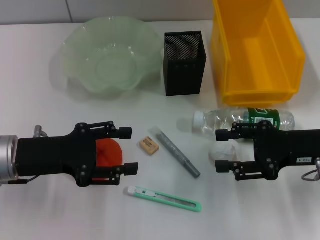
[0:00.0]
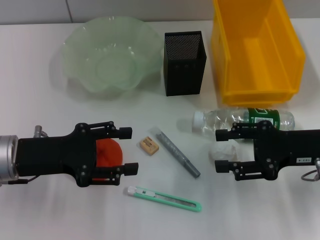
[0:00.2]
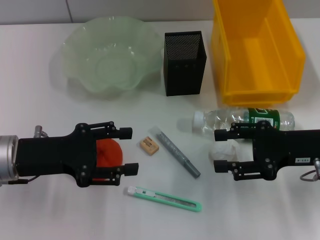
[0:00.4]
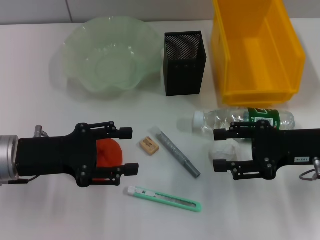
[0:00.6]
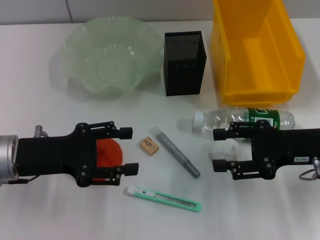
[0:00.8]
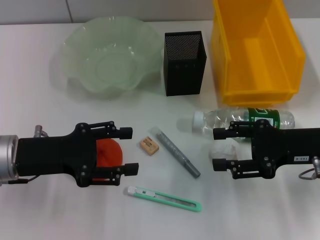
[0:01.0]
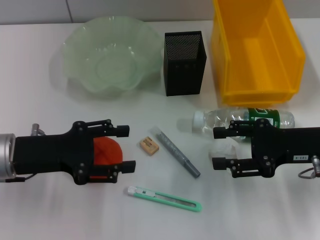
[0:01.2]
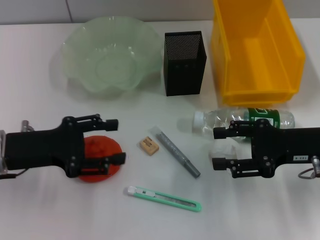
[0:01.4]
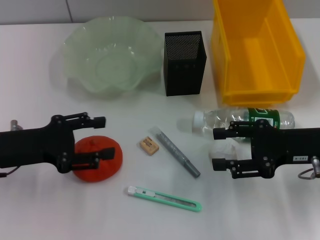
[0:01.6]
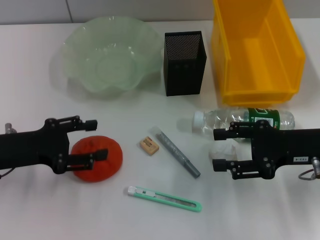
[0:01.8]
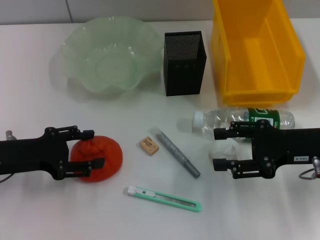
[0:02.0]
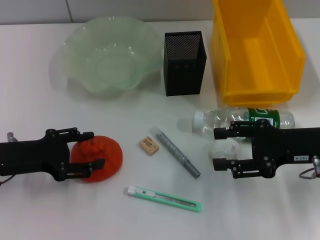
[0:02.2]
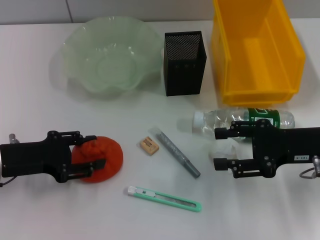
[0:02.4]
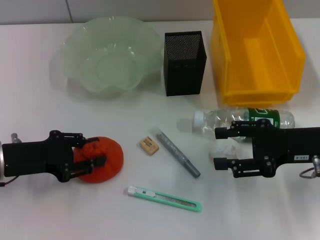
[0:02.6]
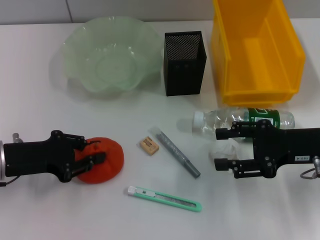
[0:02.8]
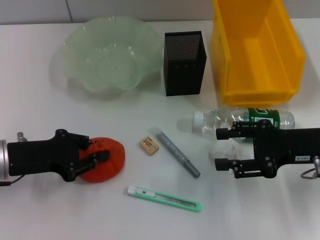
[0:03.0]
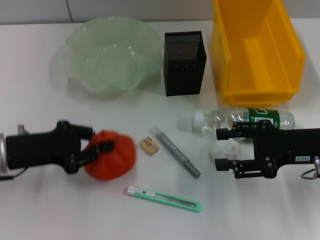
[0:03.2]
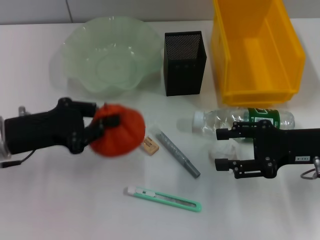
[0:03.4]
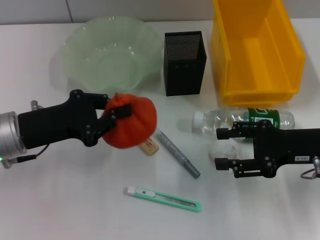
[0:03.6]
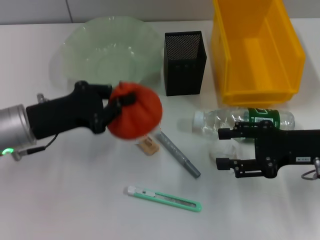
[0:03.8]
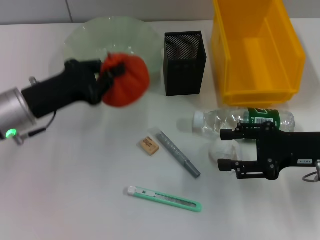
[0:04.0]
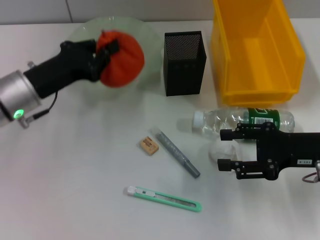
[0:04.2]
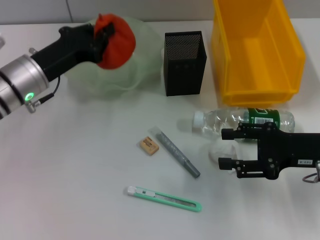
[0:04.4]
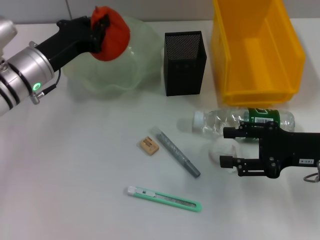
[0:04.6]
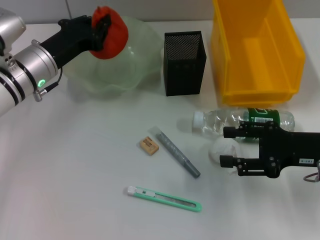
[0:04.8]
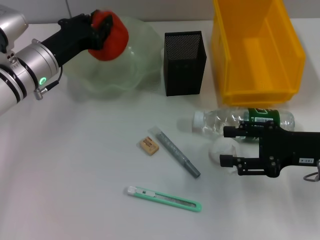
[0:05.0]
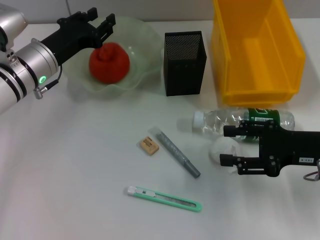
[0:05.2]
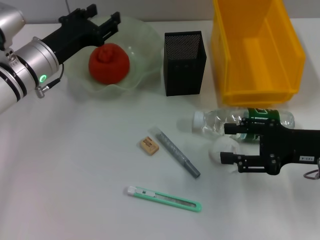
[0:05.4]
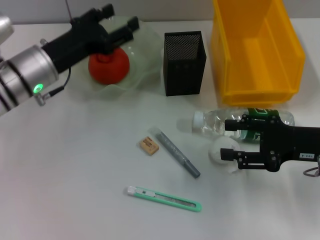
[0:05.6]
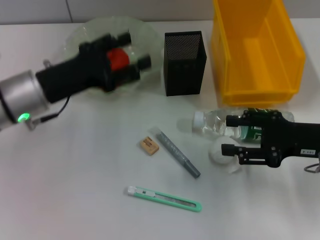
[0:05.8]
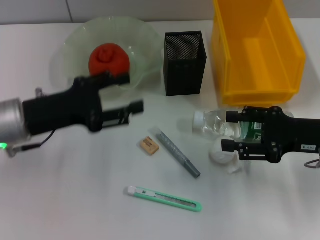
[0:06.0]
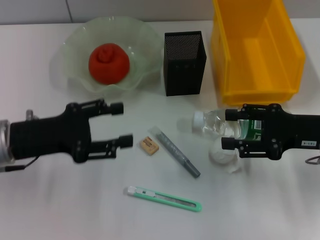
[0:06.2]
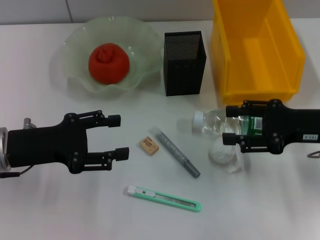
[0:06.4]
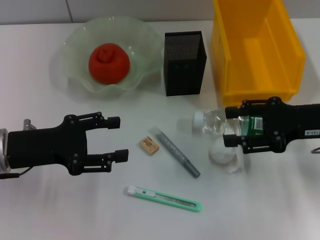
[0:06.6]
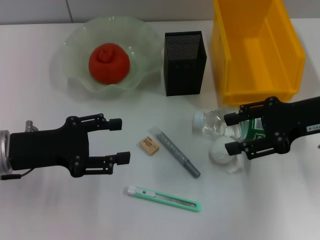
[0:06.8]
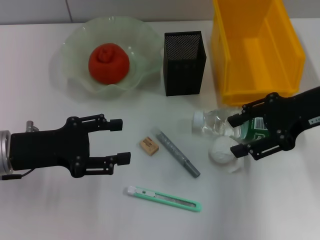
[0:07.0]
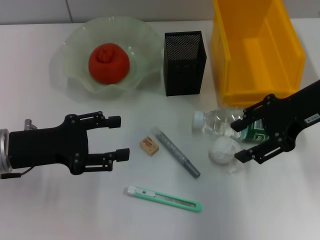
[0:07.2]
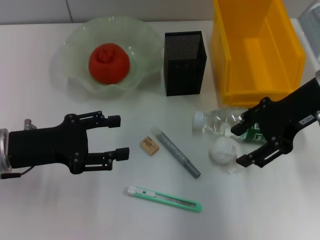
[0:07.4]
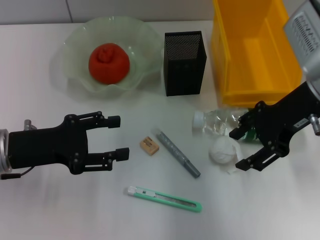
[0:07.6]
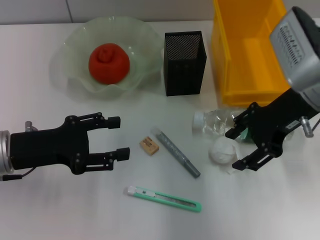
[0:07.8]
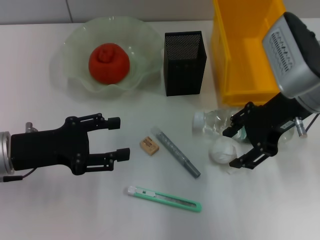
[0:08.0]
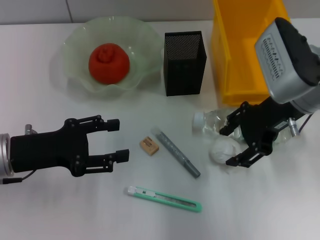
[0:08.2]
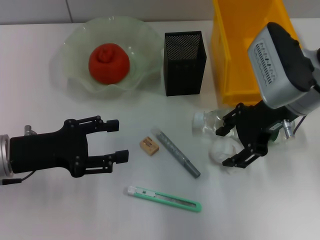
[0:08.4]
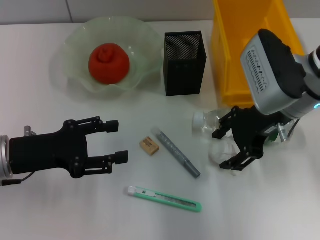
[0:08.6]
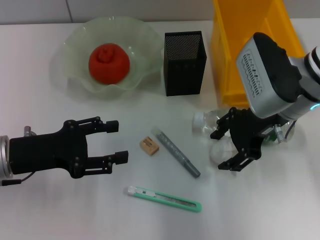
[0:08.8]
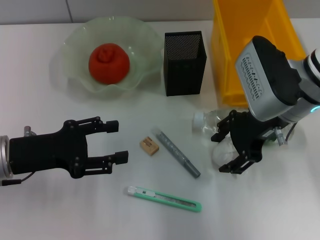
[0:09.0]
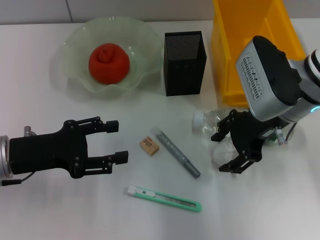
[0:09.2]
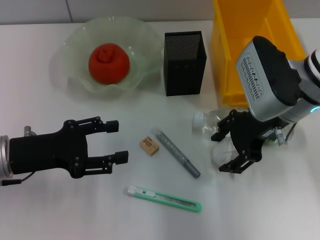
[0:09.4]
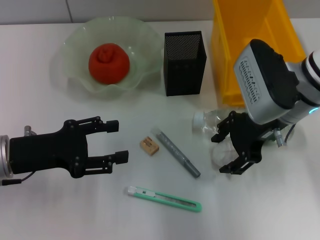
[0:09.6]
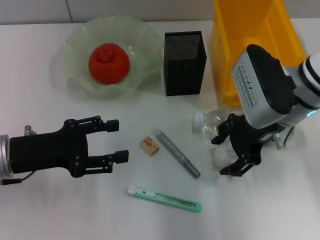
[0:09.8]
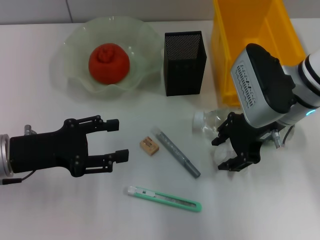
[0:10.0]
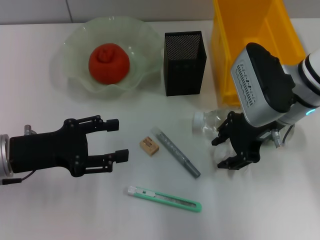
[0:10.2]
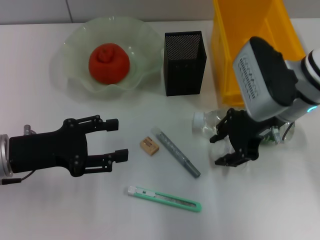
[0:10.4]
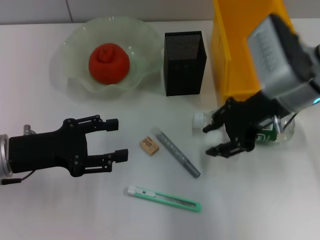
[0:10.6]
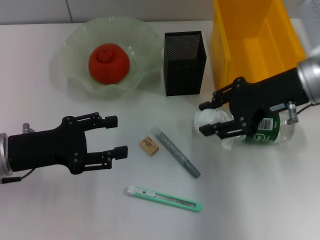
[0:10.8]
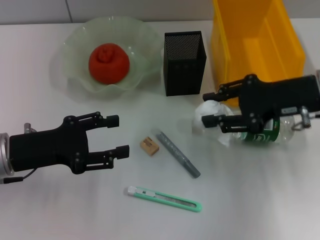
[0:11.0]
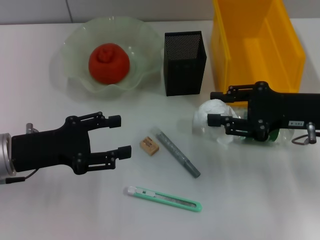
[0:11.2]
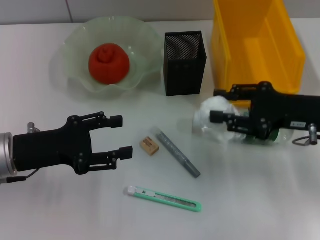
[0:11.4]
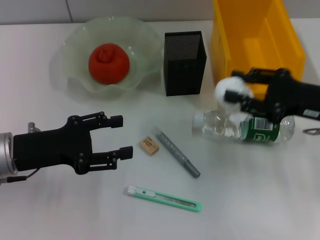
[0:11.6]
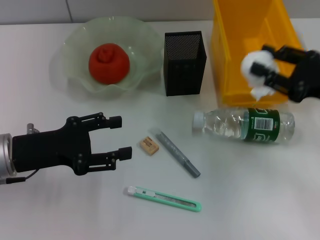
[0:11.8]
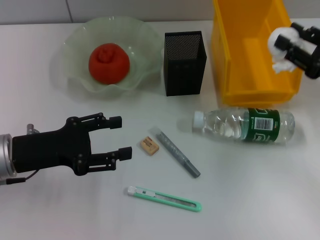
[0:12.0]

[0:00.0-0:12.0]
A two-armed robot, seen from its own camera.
Step, 0:00.0 to 0:02.8: Grab the orange with the left hand.
Step, 0:03.0 to 0:05.2: Place the orange into the fruit bowl with the left hand.
Step, 0:05.4 to 0:10.0: Grab the paper ball with the right hand.
0:00.0 to 0:01.6: The grippers move only a little.
0:01.6 to 0:03.0: The left gripper closes its fingers.
0:03.0 to 0:04.4: The left gripper travels forward by about 10 cm.
0:04.4 to 0:06.0: The left gripper goes about 5 cm backward, and opens its fingers.
0:06.0 to 0:07.6: The right gripper moves upward, to the left and forward, roughly 15 cm.
0:07.6 to 0:09.0: The right gripper moves some 5 cm.
0:09.0 to 0:10.4: Both grippers stay about where they are.
0:10.4 to 0:12.0: The right gripper shifts some 15 cm to the right.

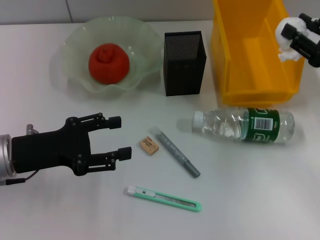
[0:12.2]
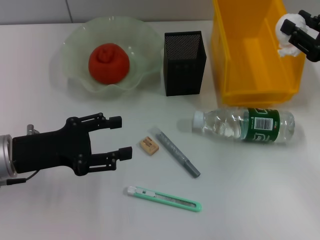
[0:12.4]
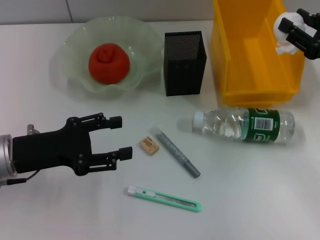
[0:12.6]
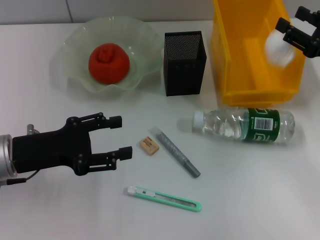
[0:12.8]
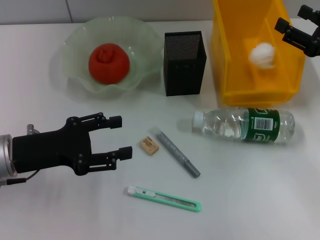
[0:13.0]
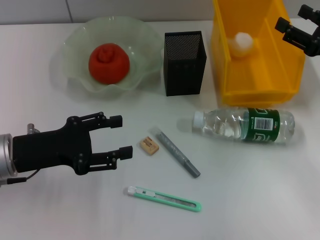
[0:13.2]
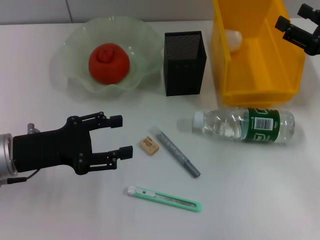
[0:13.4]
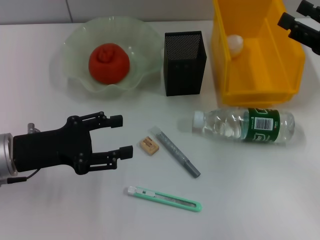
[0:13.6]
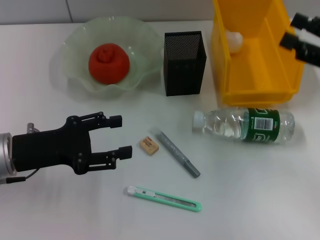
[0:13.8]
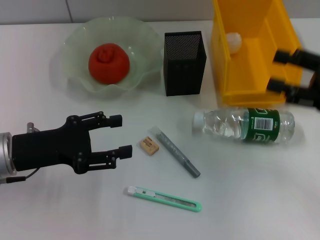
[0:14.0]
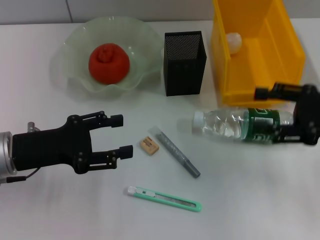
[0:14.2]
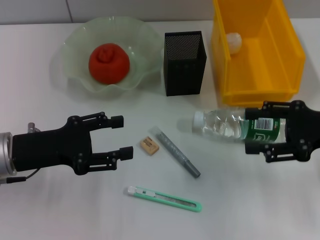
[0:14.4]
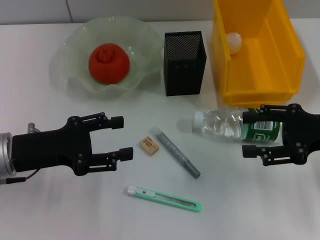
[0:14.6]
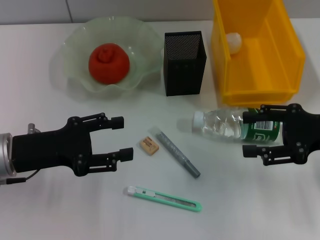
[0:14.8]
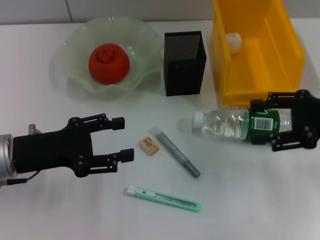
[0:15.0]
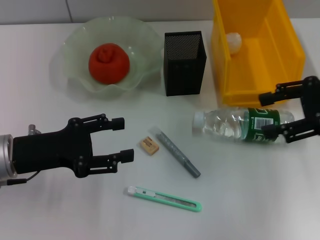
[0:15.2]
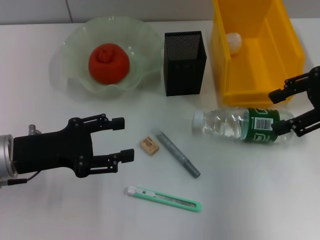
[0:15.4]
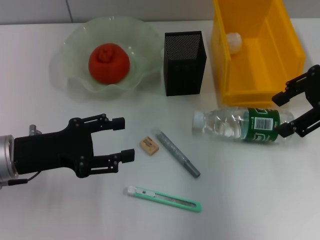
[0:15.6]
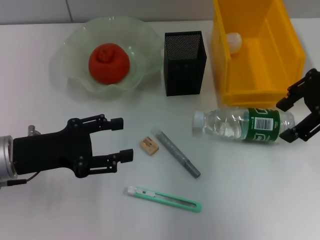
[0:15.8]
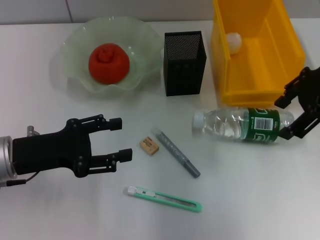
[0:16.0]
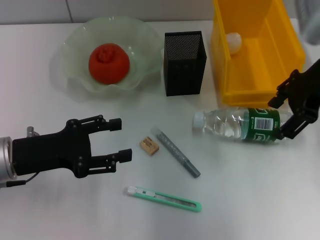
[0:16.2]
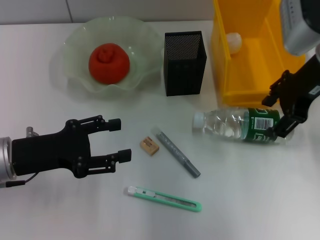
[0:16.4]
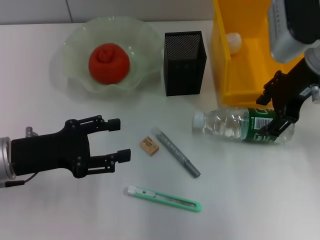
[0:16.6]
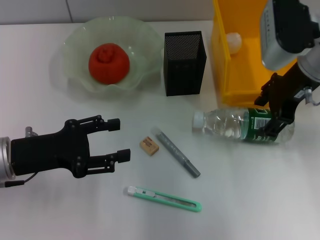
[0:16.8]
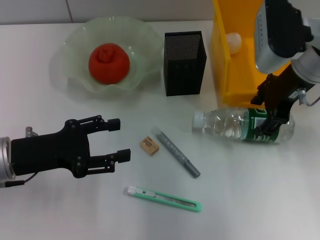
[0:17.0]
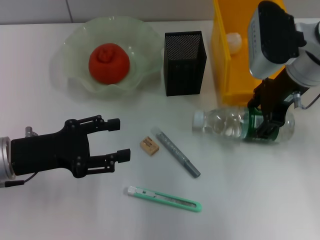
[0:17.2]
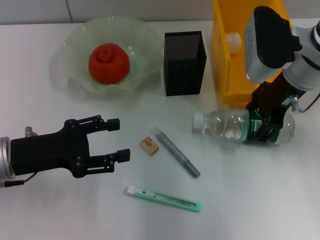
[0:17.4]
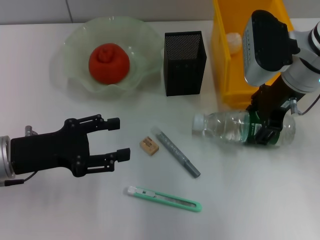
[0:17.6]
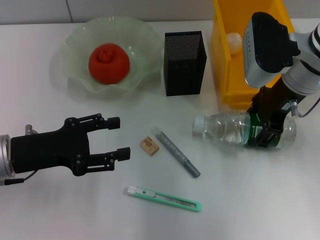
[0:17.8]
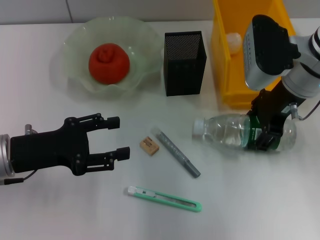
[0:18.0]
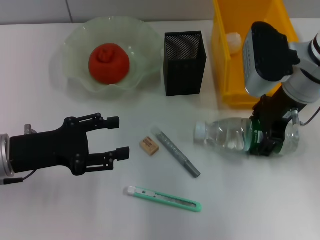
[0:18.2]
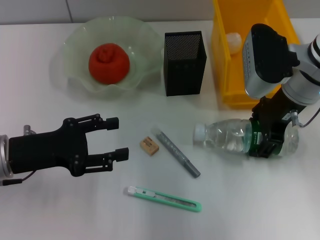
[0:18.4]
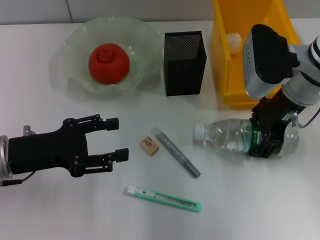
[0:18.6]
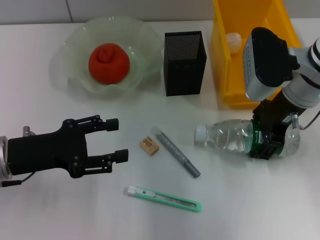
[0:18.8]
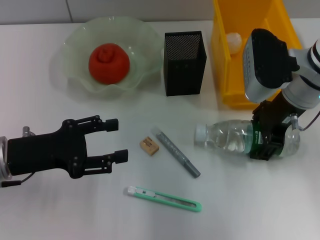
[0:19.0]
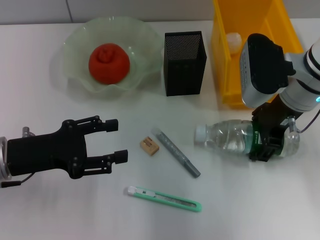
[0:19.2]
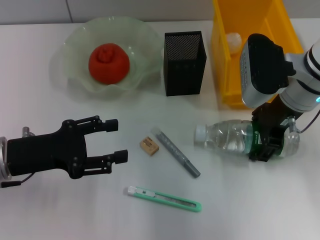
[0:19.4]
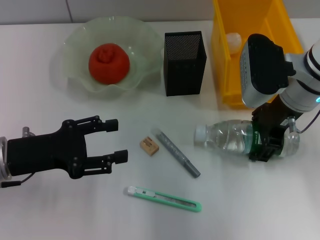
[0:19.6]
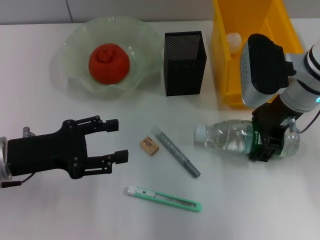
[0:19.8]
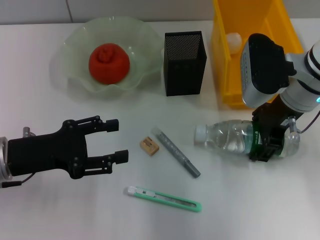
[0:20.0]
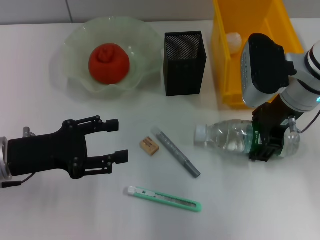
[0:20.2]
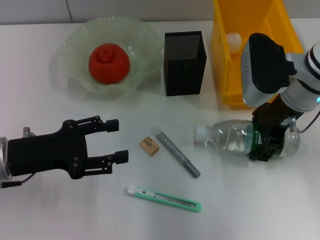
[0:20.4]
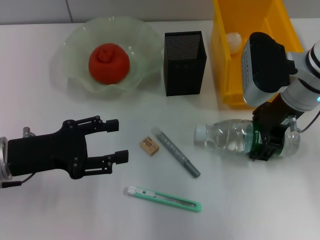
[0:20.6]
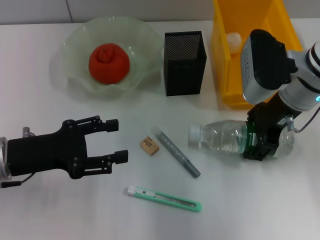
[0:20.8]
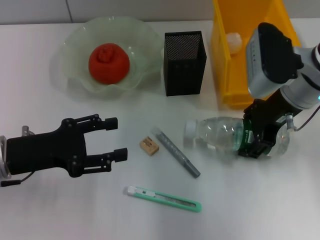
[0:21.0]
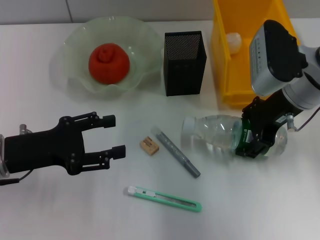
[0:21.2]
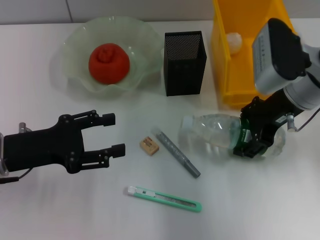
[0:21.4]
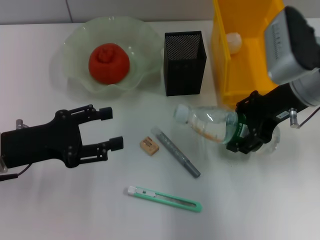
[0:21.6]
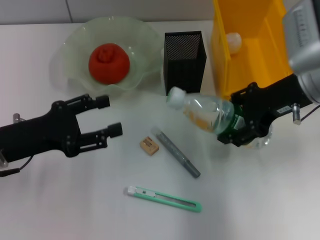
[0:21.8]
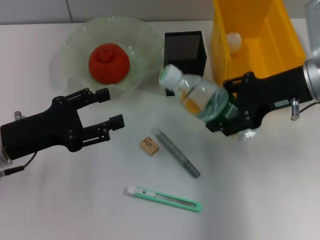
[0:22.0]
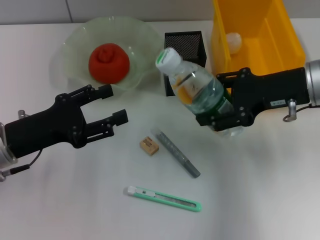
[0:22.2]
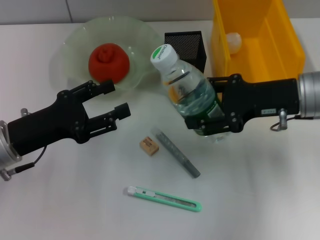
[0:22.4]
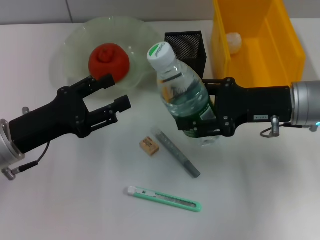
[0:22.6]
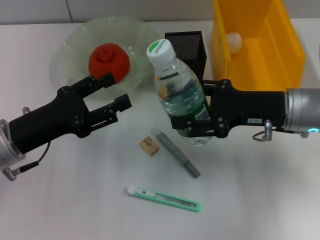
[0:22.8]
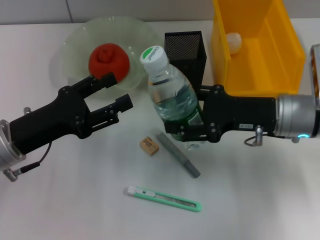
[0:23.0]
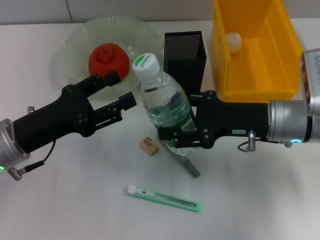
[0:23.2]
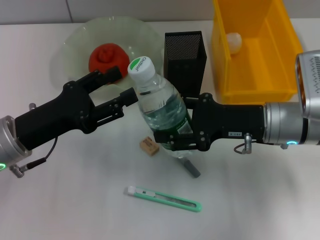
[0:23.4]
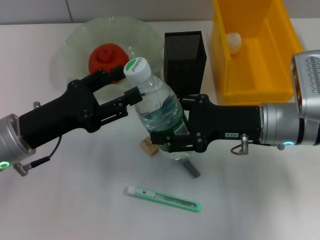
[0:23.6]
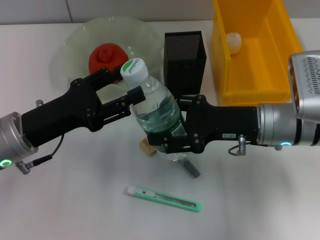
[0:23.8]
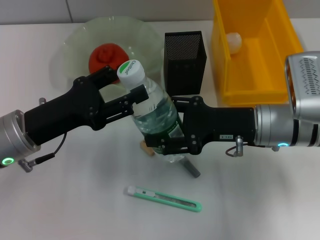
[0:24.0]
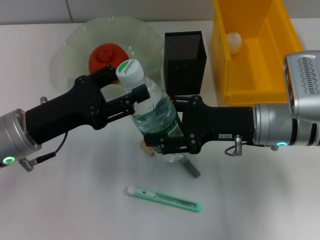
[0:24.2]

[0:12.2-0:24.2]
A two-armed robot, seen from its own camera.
Step, 0:14.2 to 0:20.4: Grab the water bottle with the right hand.
0:12.2 to 0:13.8: The right gripper opens its fingers.
0:13.8 to 0:15.2: The right gripper travels upward by approximately 5 cm.
0:15.2 to 0:16.6: The right gripper shifts roughly 10 cm to the left and forward.
0:16.6 to 0:18.2: The grippers move only a little.
0:18.2 to 0:19.8: Neither gripper changes place.
0:19.8 to 0:21.2: There are only small adjustments of the grippers.
0:21.2 to 0:22.6: The right gripper changes place by approximately 5 cm.
0:22.6 to 0:24.2: The right gripper changes place by about 5 cm.
